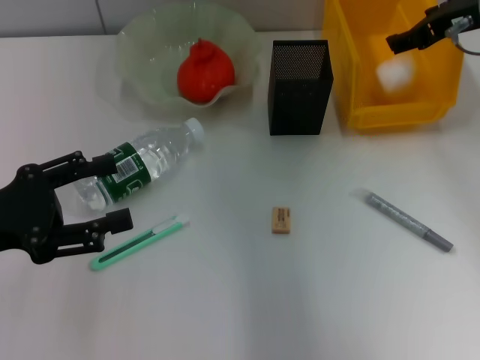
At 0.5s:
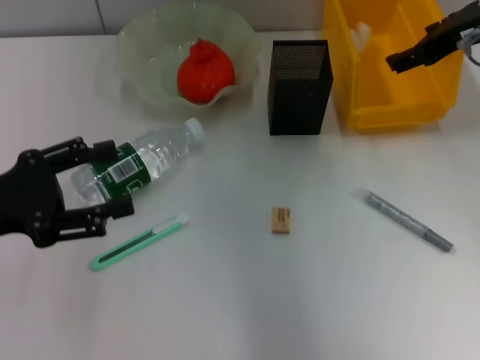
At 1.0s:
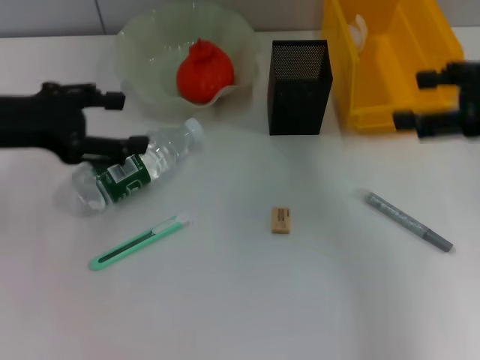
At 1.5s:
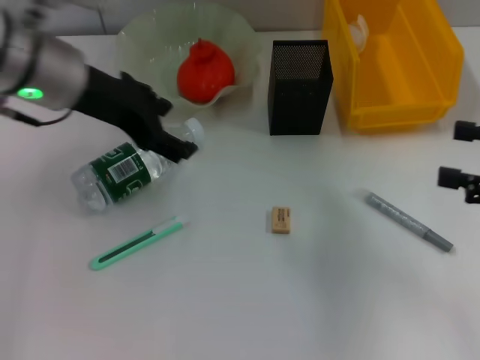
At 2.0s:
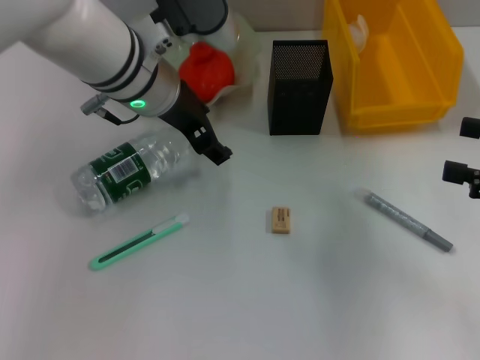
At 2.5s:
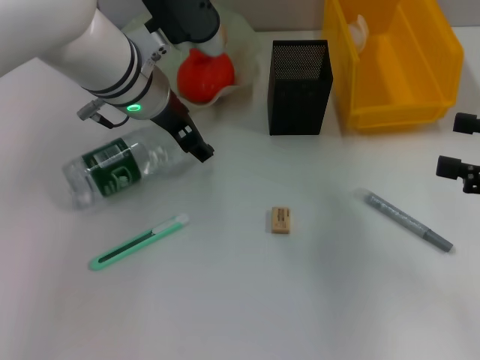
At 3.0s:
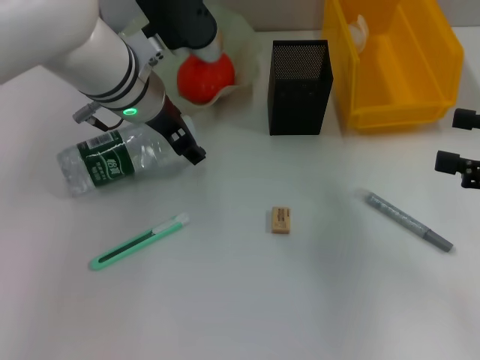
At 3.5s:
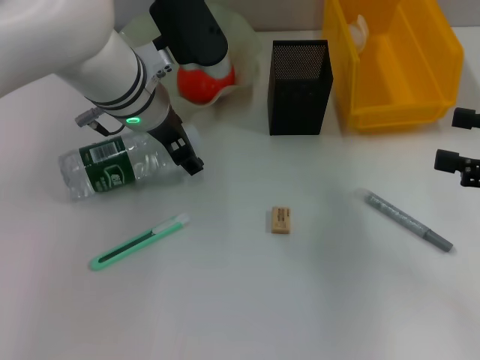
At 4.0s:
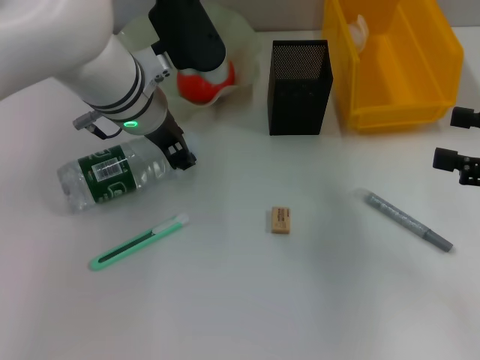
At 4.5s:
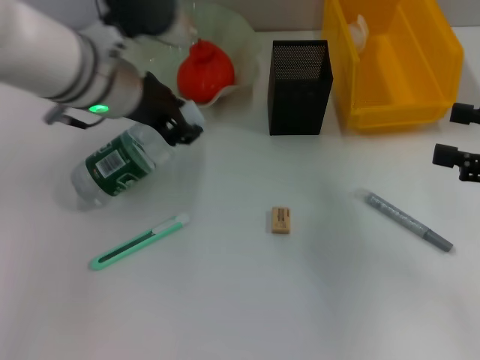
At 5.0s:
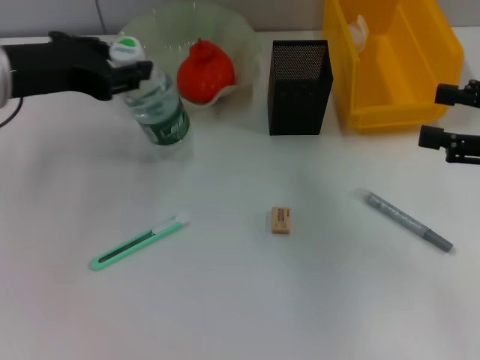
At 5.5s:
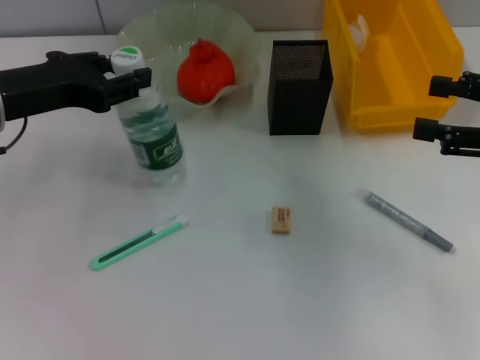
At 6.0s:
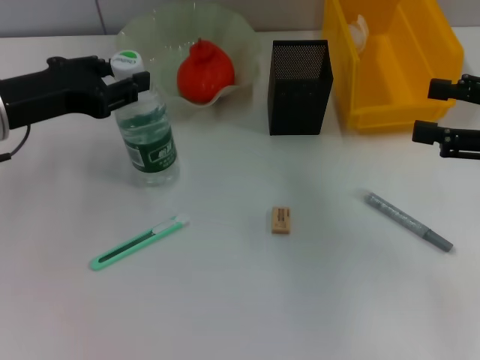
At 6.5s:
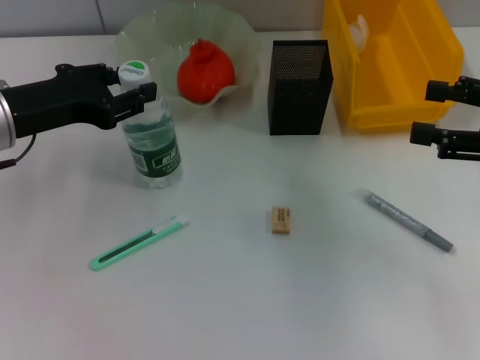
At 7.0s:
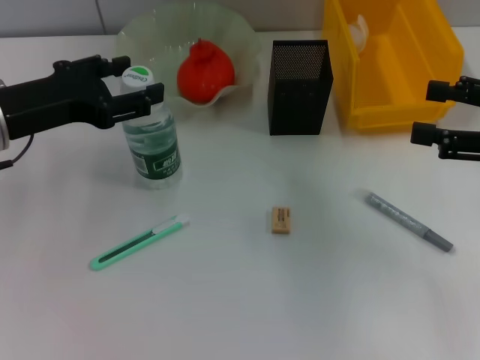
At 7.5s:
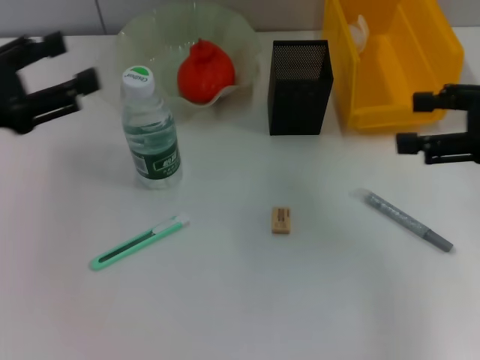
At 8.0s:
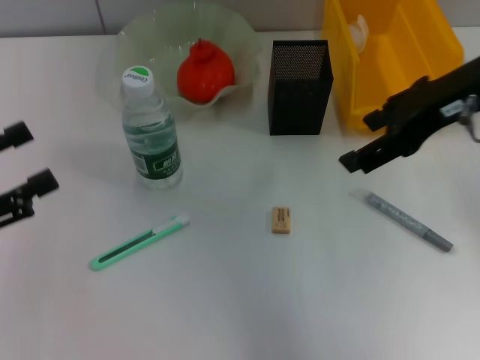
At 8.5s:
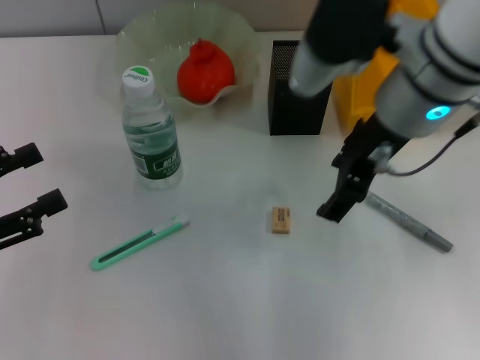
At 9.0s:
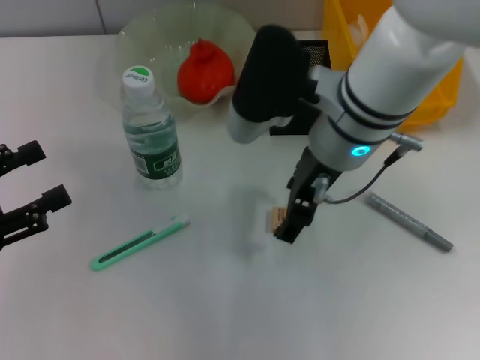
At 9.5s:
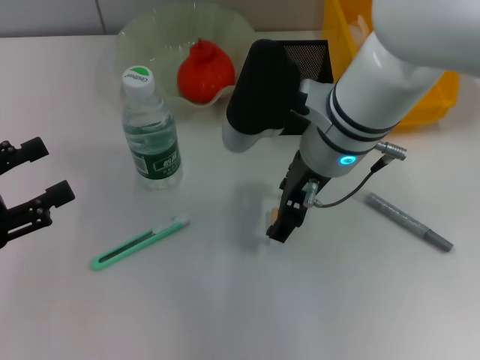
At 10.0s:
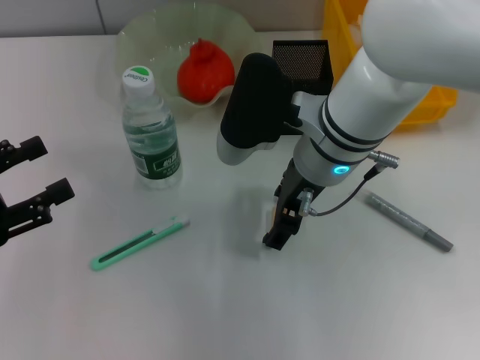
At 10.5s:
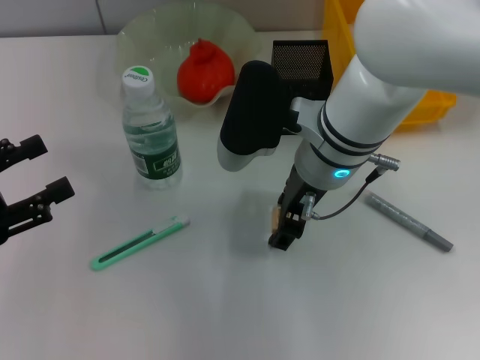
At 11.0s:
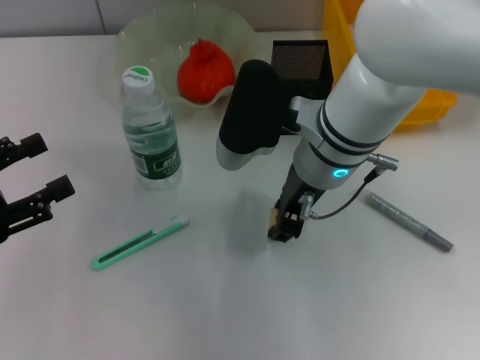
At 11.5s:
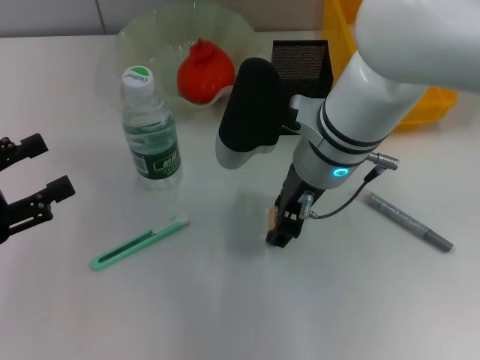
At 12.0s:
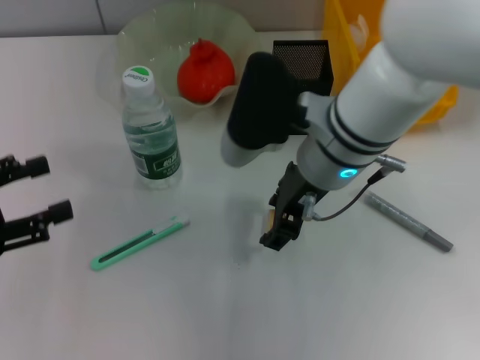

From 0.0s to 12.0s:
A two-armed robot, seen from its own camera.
Step, from 0.5s to 4.0s: Grab the water bottle with the left hand.
Step, from 4.5s to 7.0s: Place the water bottle on the table with the left hand.
From 0.0s to 2.0s: The right gripper heads backward and to the right, covering about 20 cm; the left gripper travels to the right and forward by some 25 cm.
From 2.0s to 4.0s: The grippers move only a little.
From 4.0s to 6.0s: The left gripper travels to the left and backward by some 15 cm.
From 6.0s to 8.0s: The right gripper is displaced to the left, upward and forward by approximately 15 cm. The left gripper moves backward and to the left, roughly 15 cm, and opens.
From 8.0s to 10.0s: The right gripper shifts approximately 15 cm to the left and downward.
From 10.0s to 12.0s: The grippers move only a little.

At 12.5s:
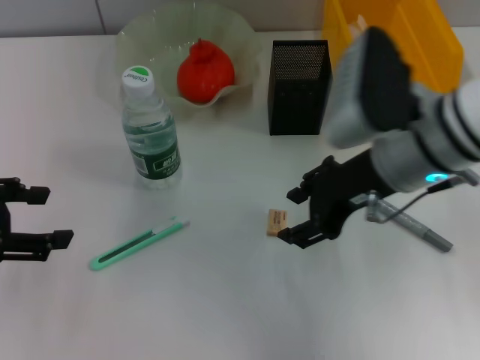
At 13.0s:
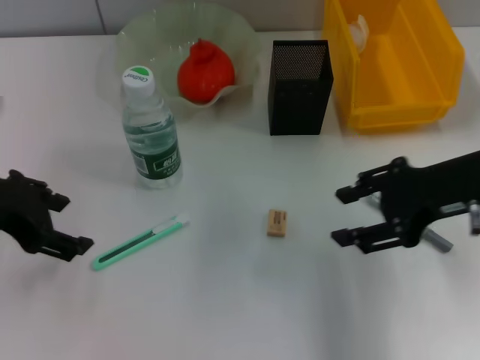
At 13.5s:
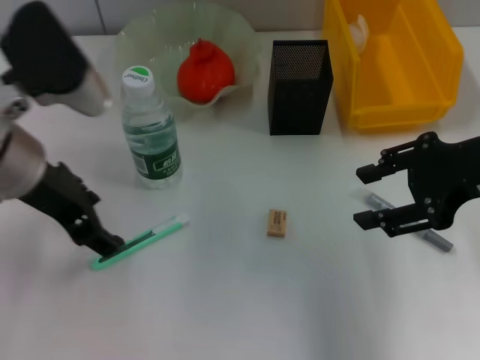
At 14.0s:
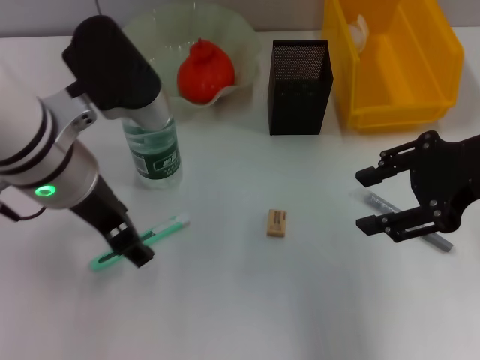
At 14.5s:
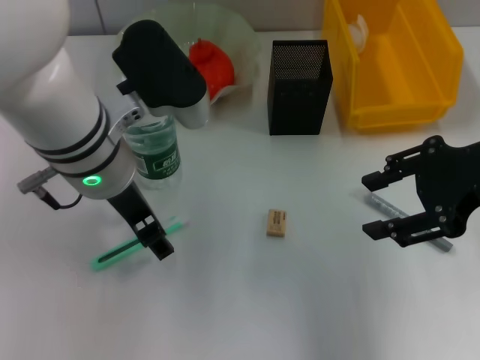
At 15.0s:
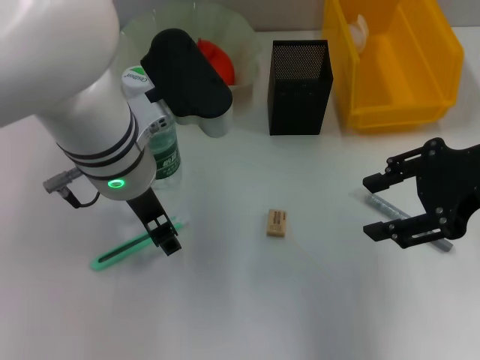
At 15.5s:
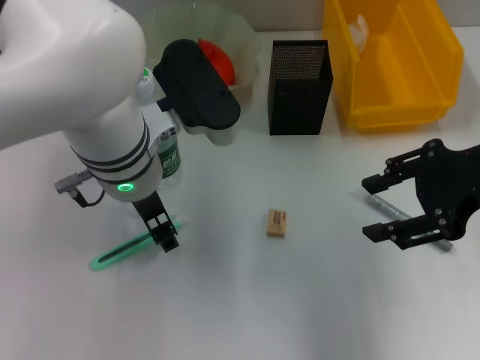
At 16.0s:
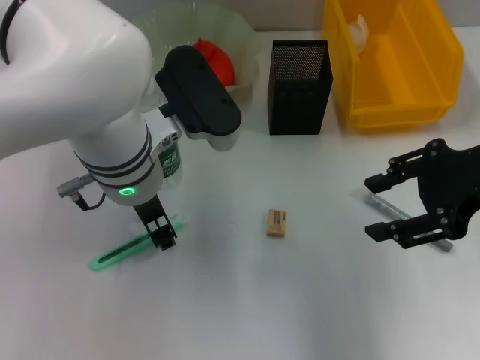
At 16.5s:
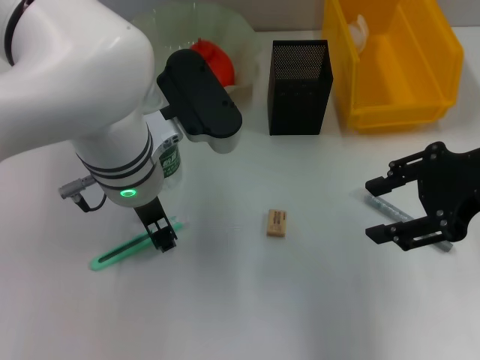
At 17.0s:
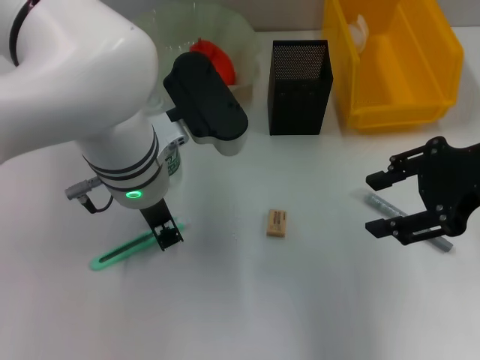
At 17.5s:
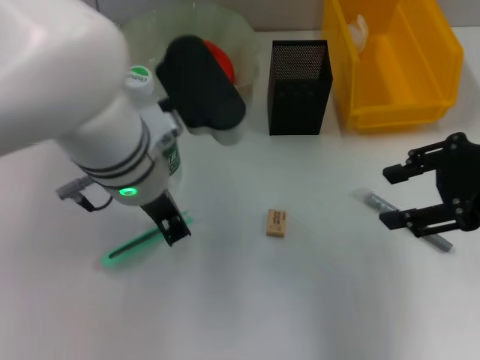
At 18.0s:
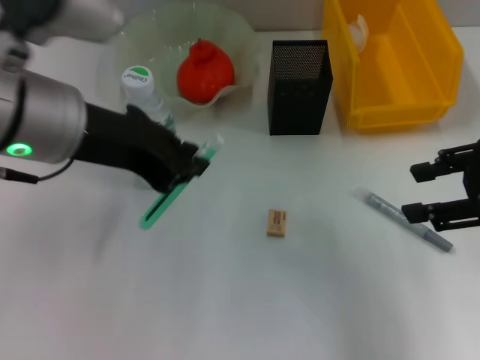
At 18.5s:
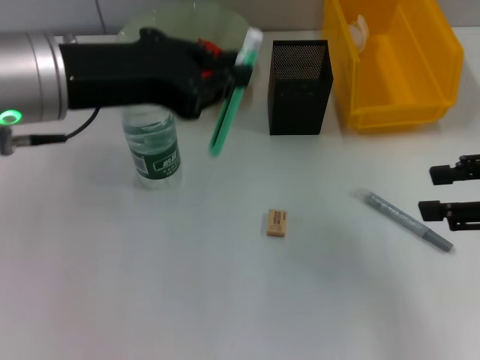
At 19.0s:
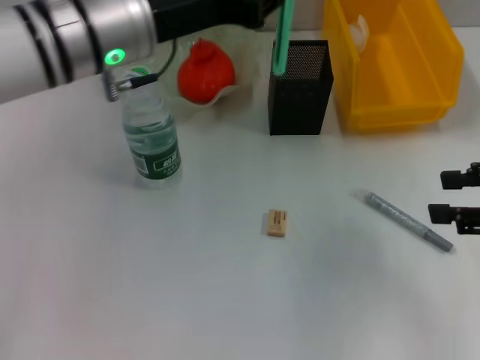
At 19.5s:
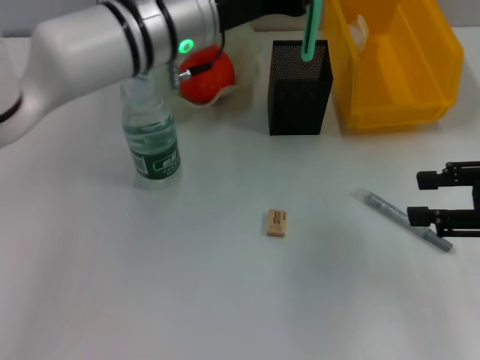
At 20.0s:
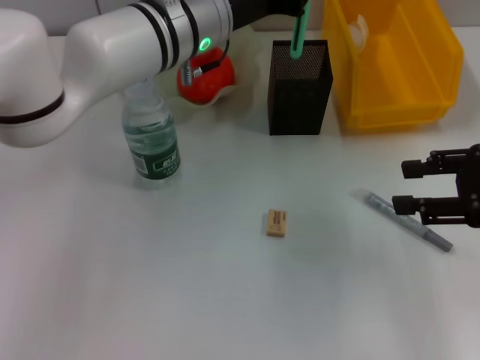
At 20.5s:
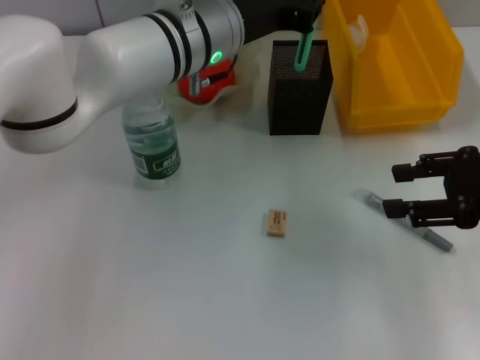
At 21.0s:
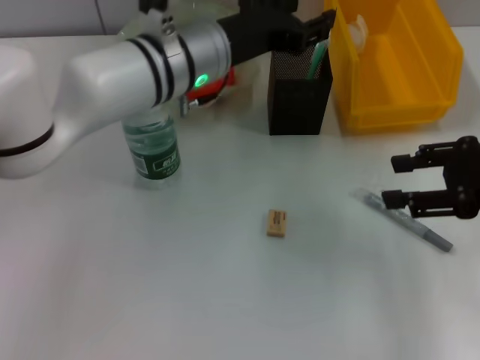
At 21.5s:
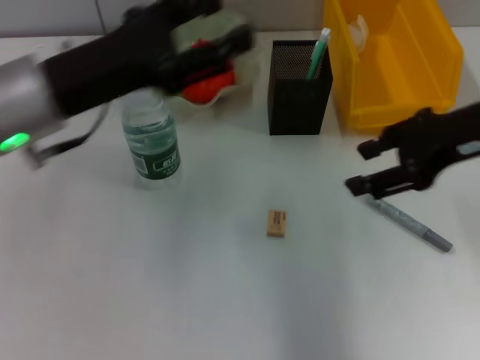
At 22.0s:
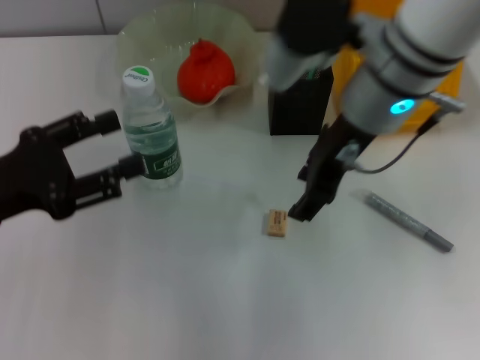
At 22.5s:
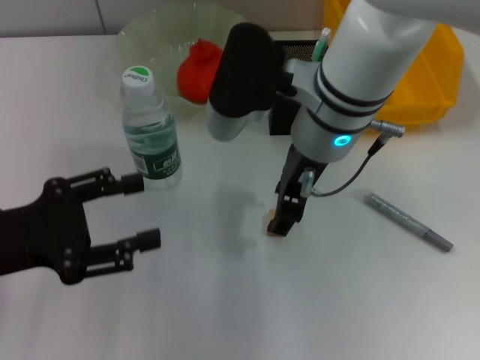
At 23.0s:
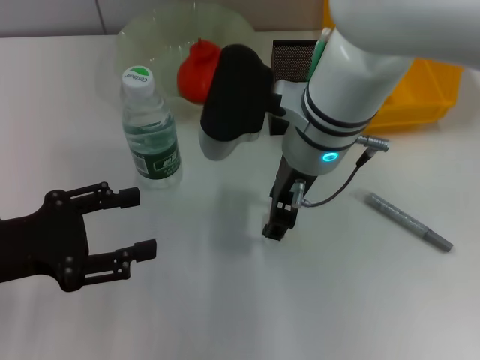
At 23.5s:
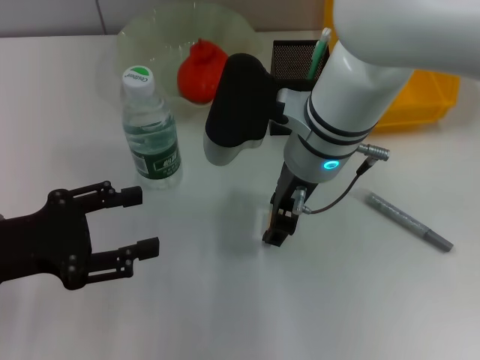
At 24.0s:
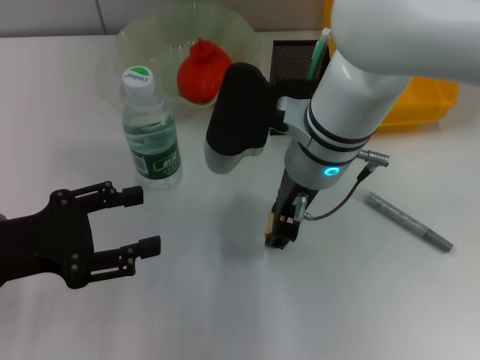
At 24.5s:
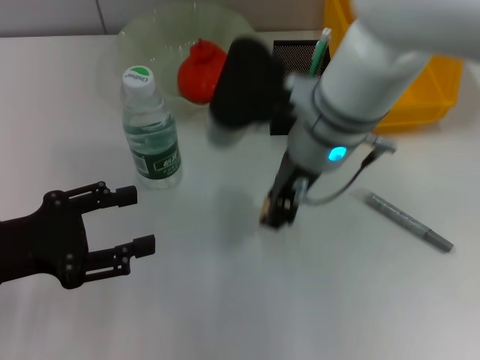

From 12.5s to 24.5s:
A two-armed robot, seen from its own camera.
Step, from 12.5s to 17.0s: Grab the blue utility knife with the left hand.
Step, from 17.5s to 21.0s: Place the blue utility knife into the pen holder with the left hand.
Step, from 21.5s to 24.0s: Grab the eraser with the right hand.
From 12.5s to 14.5s: The right gripper moves to the right, roughly 10 cm; the left gripper heads to the right, covering about 20 cm.
From 14.5s to 16.5s: The left gripper closes up.
From 16.5s to 18.5s: The right gripper is displaced to the right by about 5 cm. Meanwhile the left gripper heads upward and to the left, covering some 10 cm.
From 18.5s to 20.5s: The left gripper heads to the right, forward and downward, covering roughly 20 cm.
From 20.5s to 22.5s: The right gripper shifts some 25 cm to the left; the left gripper is displaced to the left and backward by approximately 30 cm, and opens up.
From 22.5s to 24.5s: The right gripper closes.

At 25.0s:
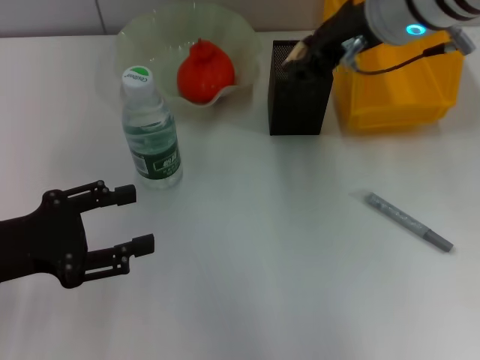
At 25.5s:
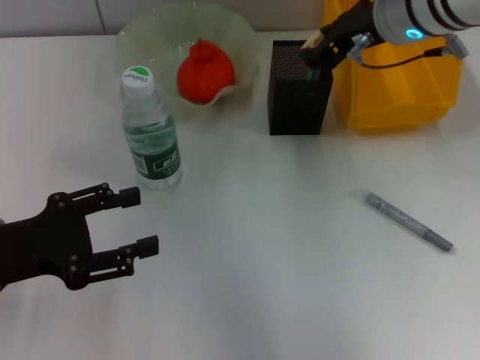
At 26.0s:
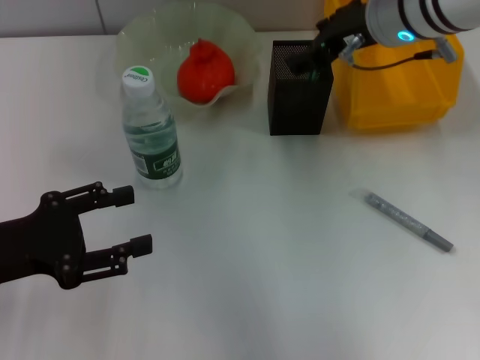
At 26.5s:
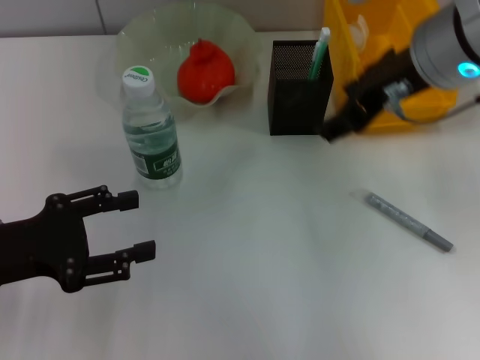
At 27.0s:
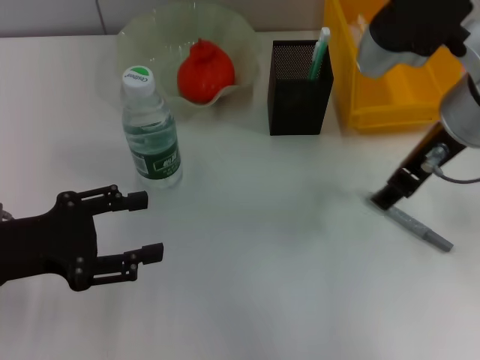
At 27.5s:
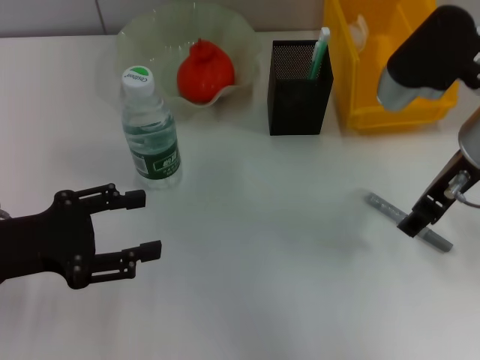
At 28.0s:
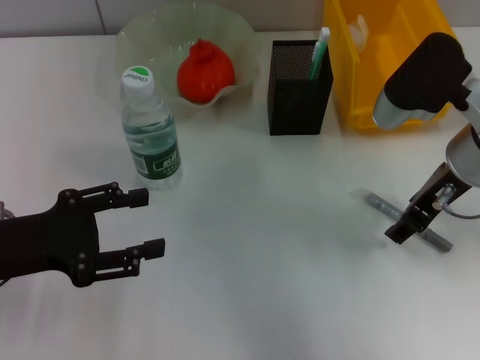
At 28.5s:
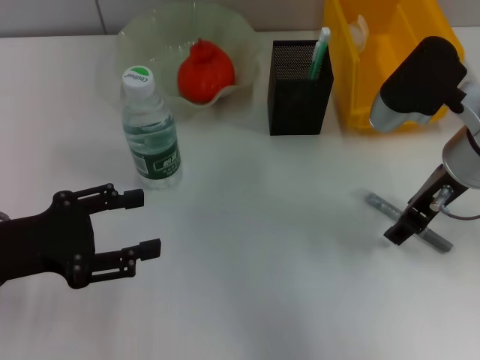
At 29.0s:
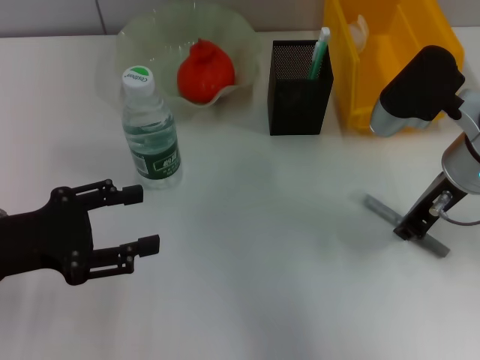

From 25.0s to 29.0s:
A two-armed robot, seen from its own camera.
Step, from 25.0s to 26.0s: Put the eraser into the pen holder with the right hand.
From 25.0s to 27.0s: The right gripper shifts approximately 5 cm backward, and opens its fingers.
From 27.0s to 29.0s: The right gripper shifts some 5 cm downward, and closes its fingers.
